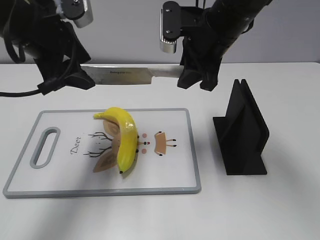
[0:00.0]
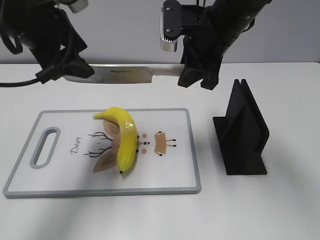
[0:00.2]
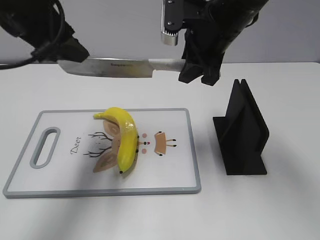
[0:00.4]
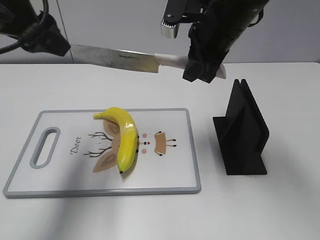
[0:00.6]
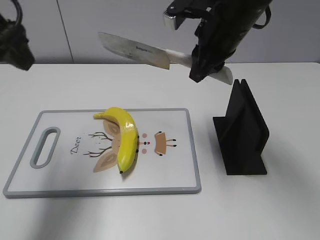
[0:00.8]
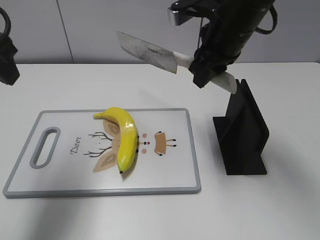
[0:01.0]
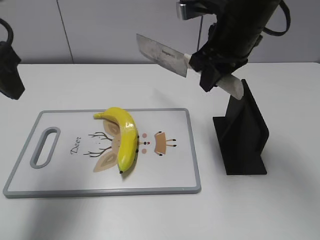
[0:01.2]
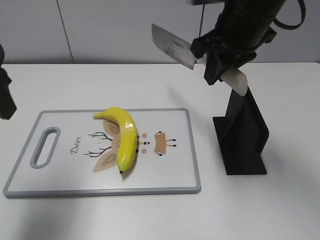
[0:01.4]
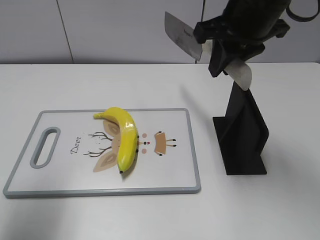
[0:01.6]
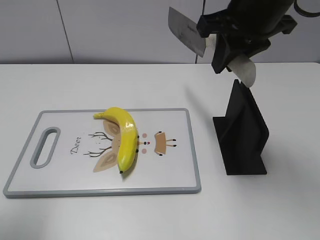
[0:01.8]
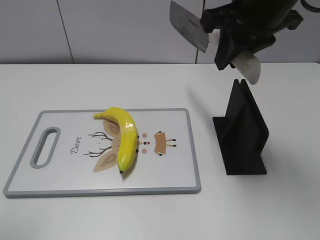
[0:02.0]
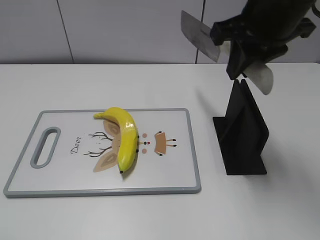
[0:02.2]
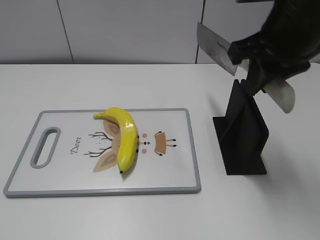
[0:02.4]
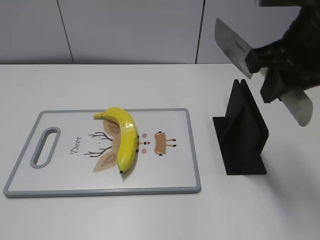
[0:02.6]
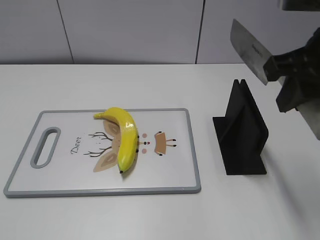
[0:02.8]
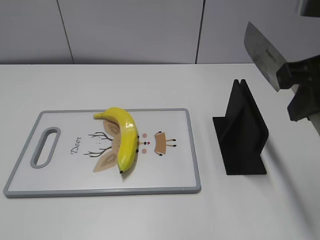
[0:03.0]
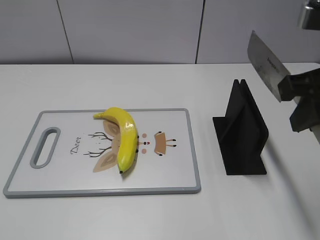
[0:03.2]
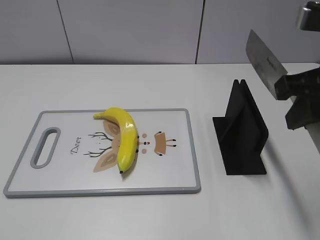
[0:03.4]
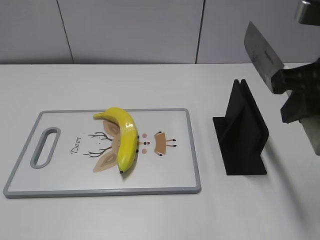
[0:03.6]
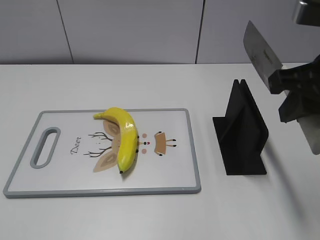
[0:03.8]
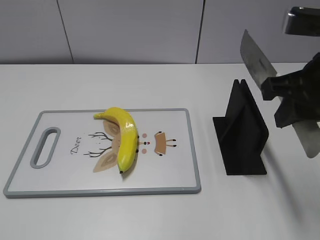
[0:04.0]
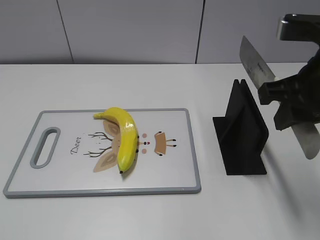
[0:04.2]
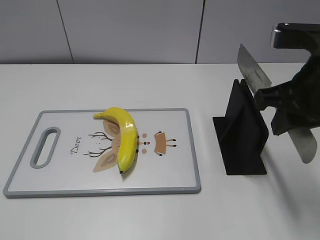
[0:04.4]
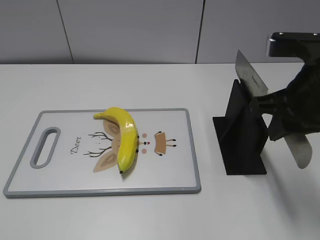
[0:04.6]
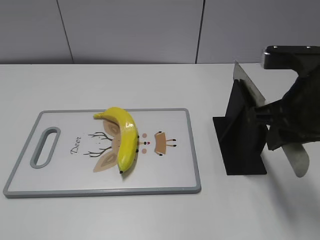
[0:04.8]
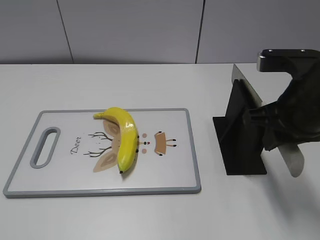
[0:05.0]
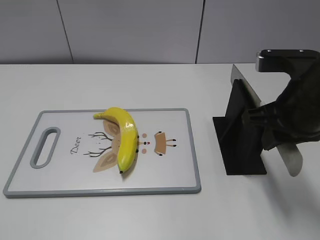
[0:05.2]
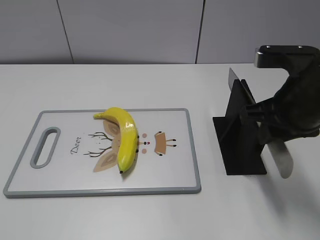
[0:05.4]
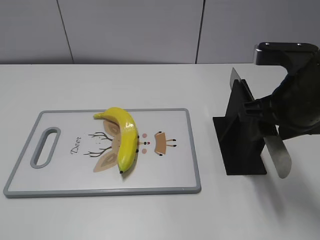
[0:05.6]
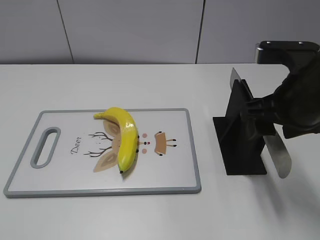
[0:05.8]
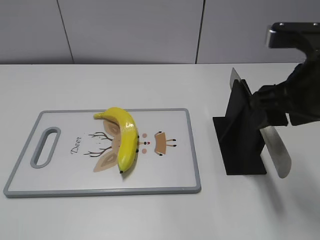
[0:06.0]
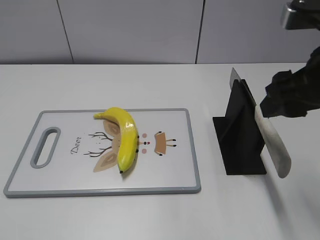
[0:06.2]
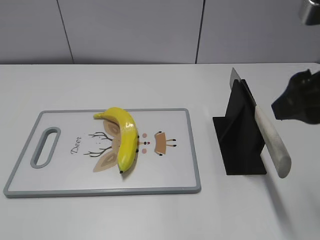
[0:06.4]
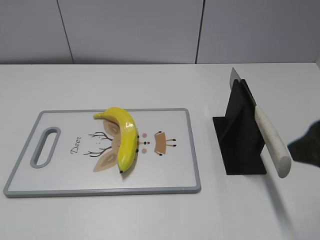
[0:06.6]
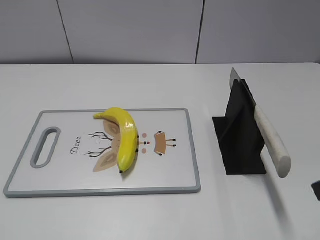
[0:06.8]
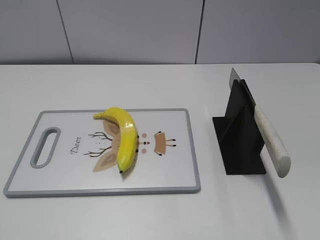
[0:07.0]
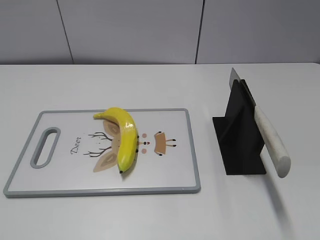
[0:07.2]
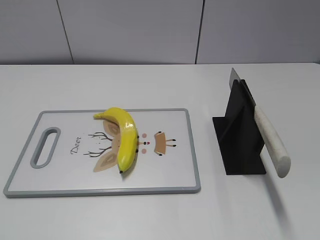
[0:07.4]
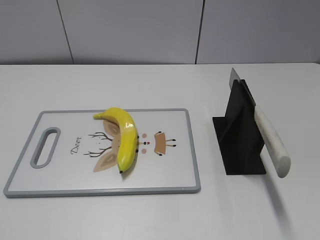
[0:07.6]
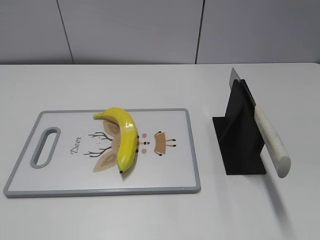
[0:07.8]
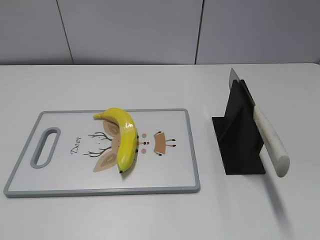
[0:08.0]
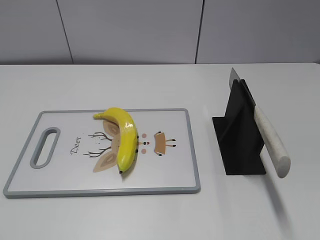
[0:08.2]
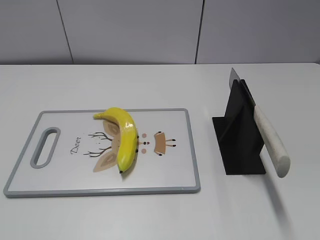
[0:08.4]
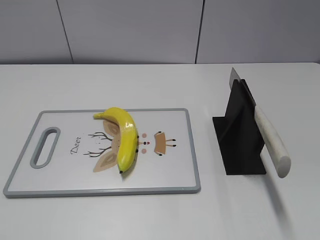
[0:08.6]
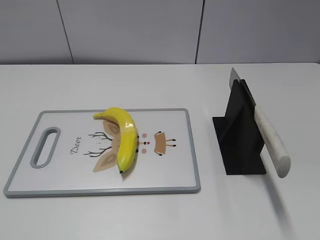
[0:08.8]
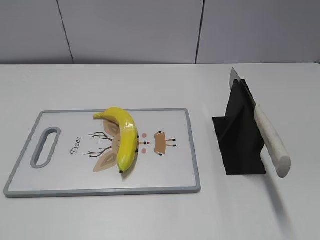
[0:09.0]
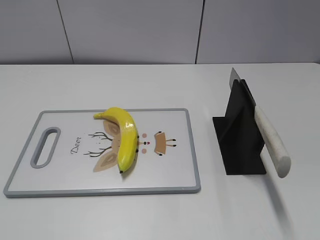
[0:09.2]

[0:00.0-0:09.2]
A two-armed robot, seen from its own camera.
Task of the whole recording: cut plastic banana.
Step, 0:00.8 to 0:02.4: Secure the blade with your left hand.
Step, 0:02.8 to 0:09.2: Place the knife on the storage rack with your right hand.
0:00.0 to 0:01.6: The right gripper travels upward by approximately 5 cm. The left gripper goes roughly 15 cm backward and to the left.
0:01.6 to 0:03.0: The left gripper goes about 20 cm backward; the right gripper travels backward and to the right by about 15 cm.
0:03.0 to 0:04.6: The right gripper heads downward, covering some 5 cm.
0:04.6 to 0:06.2: The right gripper opens.
0:06.2 to 0:07.6: The right gripper shifts approximately 20 cm backward and to the right.

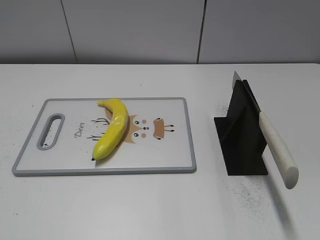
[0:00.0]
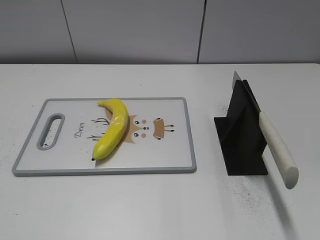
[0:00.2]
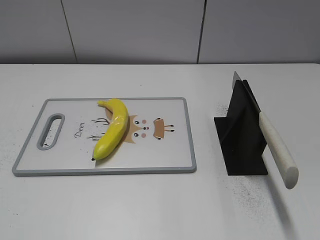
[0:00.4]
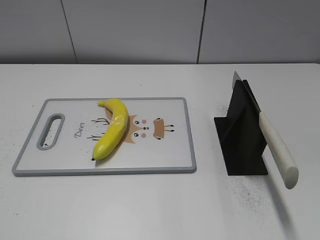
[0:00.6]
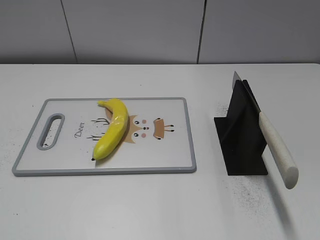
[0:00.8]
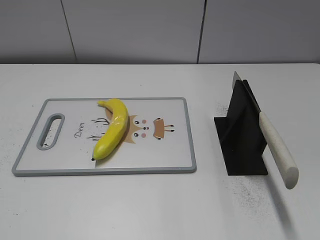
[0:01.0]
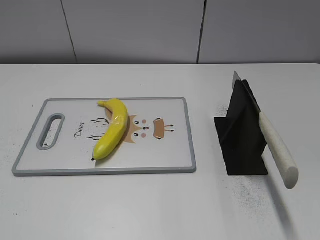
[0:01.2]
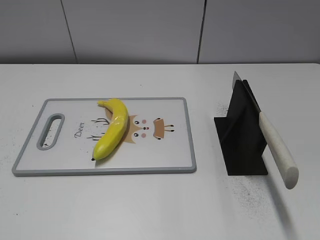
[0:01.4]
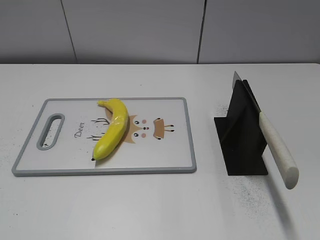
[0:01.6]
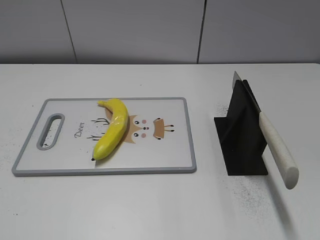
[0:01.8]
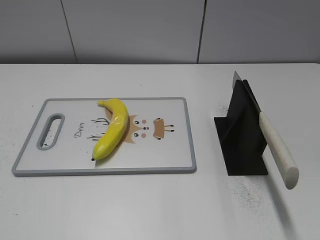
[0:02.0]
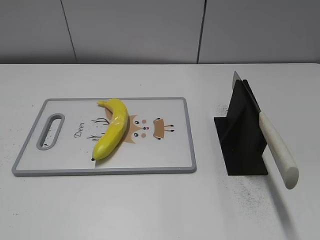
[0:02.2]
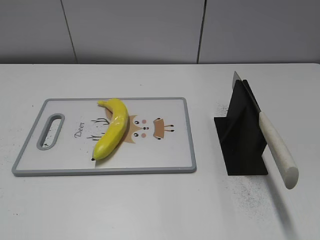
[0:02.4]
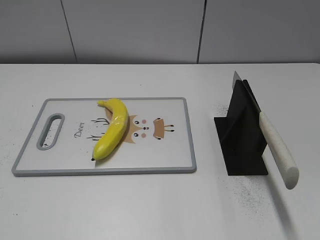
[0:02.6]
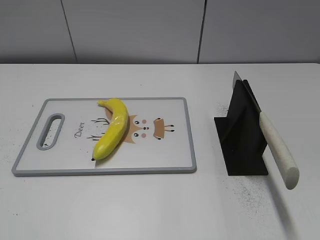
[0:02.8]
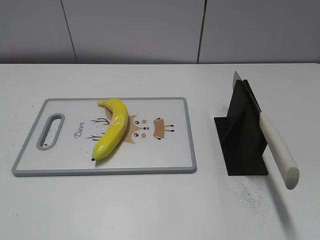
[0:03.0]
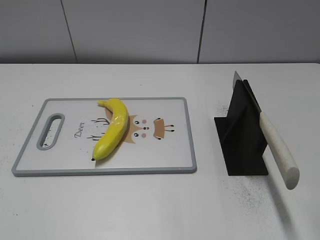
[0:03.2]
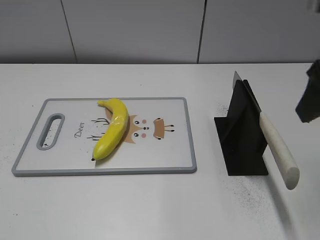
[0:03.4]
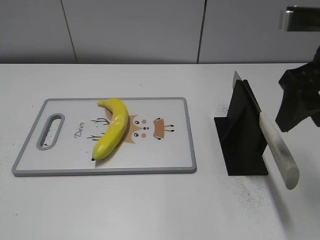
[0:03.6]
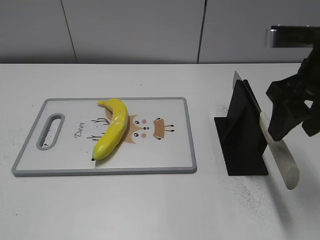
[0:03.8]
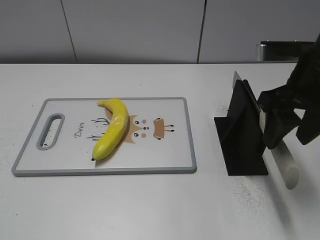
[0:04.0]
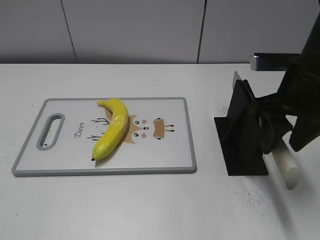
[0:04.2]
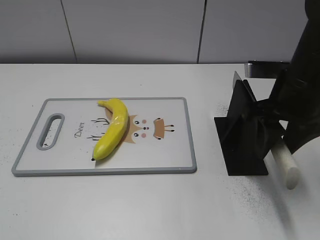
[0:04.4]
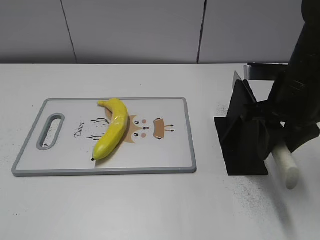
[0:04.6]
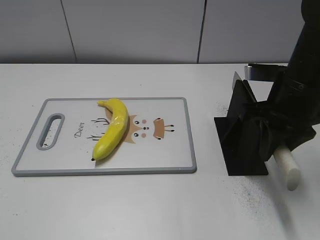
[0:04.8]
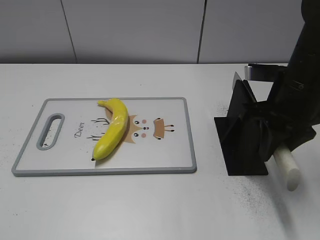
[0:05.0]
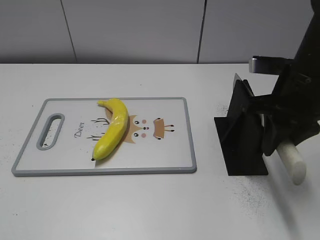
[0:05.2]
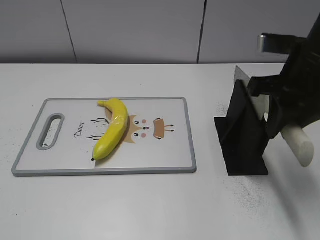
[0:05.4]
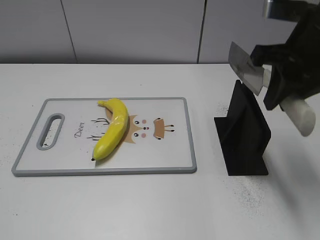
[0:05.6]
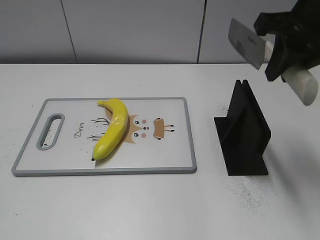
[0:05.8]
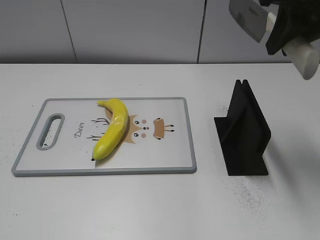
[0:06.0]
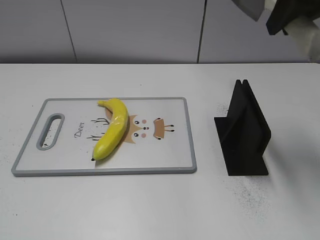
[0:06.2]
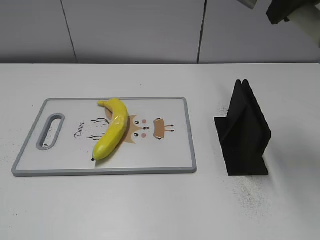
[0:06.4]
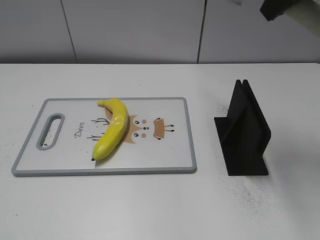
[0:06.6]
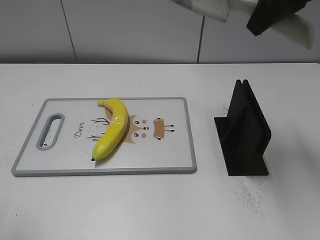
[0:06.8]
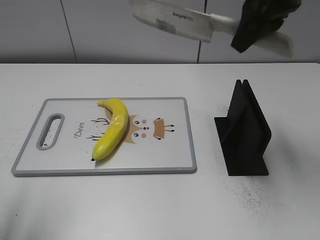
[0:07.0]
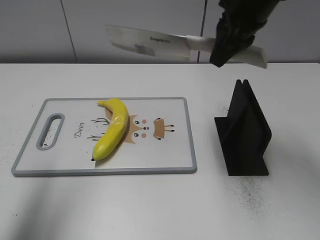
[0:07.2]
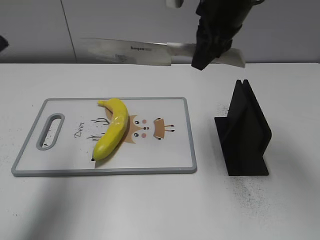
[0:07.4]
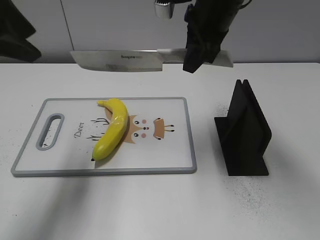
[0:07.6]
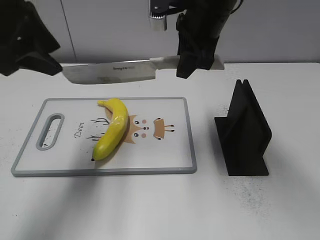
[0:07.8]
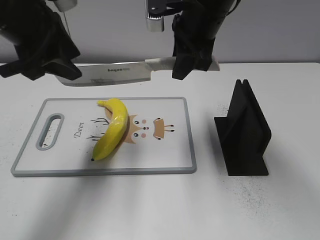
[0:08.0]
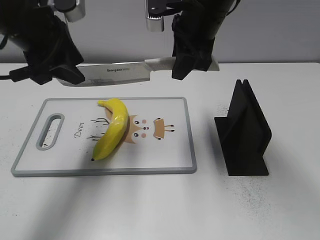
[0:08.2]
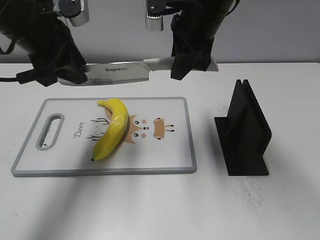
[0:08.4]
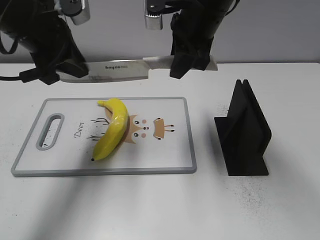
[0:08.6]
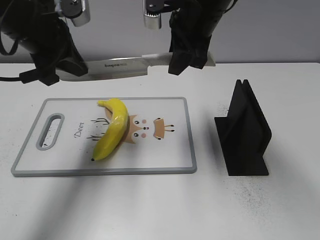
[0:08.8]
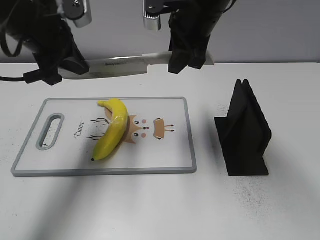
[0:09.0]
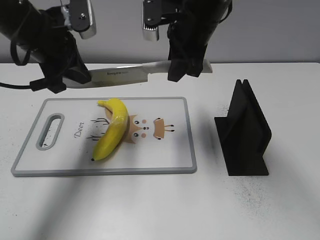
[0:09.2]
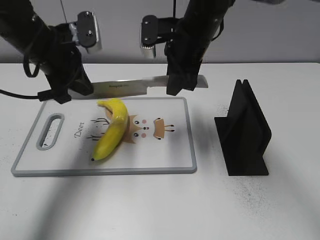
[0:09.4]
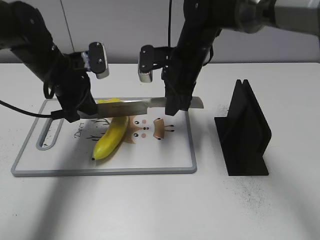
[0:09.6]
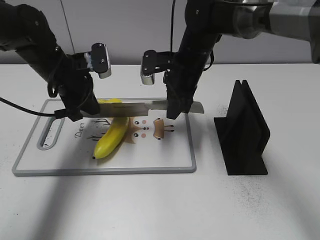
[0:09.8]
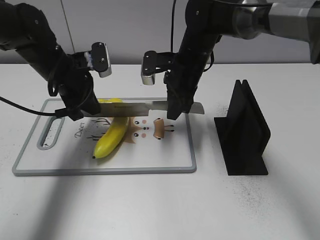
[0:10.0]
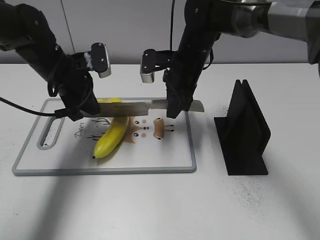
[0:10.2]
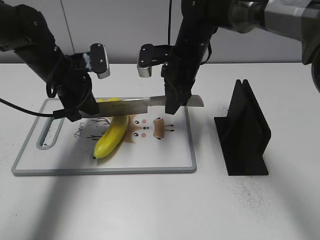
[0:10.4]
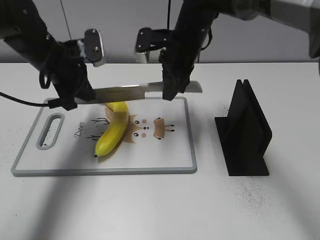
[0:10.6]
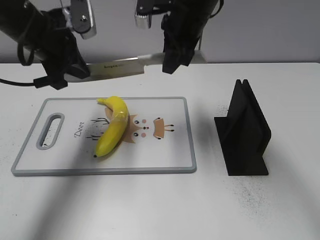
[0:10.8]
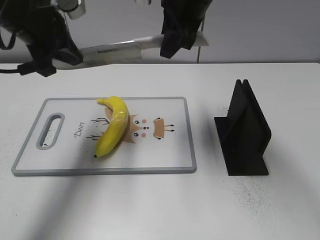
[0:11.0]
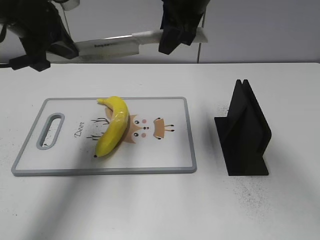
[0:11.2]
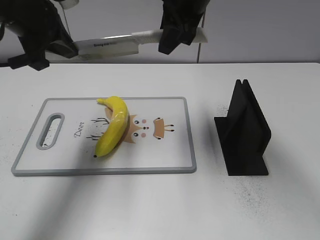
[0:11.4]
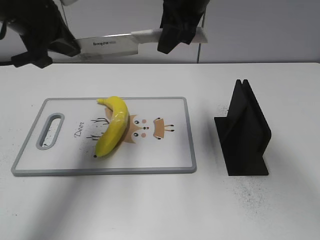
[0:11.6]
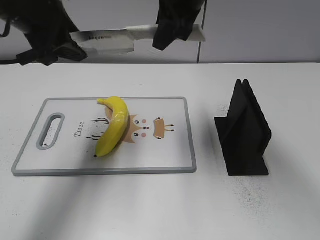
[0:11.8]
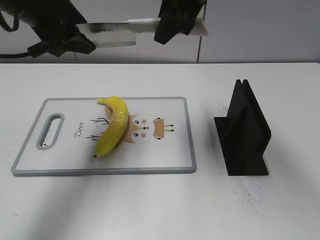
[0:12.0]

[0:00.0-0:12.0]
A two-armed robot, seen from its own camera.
Task of the whole recording: cut plastic banana.
Step, 0:00.0 to 0:06.2: Grab the knife handle with your right hand.
Step, 0:06.4 to 0:10.6: Lift the knife with your right hand.
0:03.0 to 0:04.4: The right gripper moves forward, downward and to the left, approximately 20 cm.
0:04.4 to 0:06.0: The right gripper heads upward, covering roughly 15 cm, and closes up.
0:06.0 to 0:07.6: The right gripper moves to the left, forward and downward, some 15 cm; the left gripper is displaced forward by roughly 25 cm.
0:07.6 to 0:09.0: The left gripper is displaced downward and forward by approximately 10 cm, and closes up.
0:09.0 to 0:10.4: Both grippers move downward, about 10 cm.
0:10.4 to 0:12.0: Both grippers travel together upward, approximately 15 cm. The left gripper opens up.

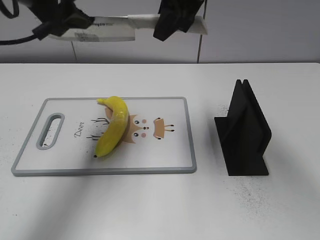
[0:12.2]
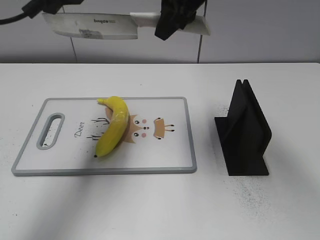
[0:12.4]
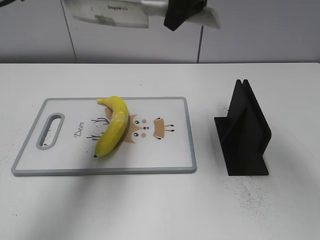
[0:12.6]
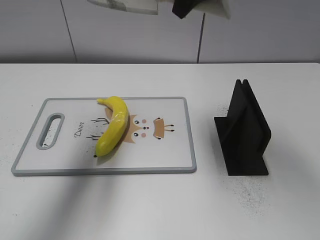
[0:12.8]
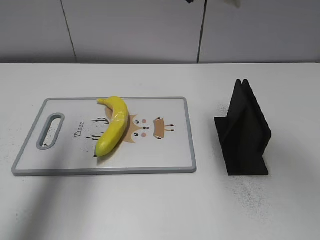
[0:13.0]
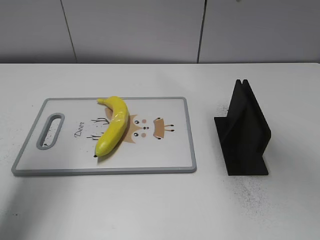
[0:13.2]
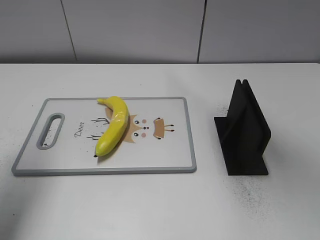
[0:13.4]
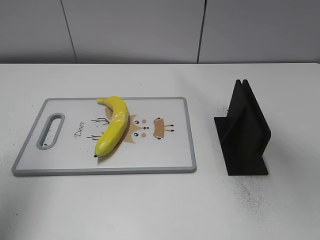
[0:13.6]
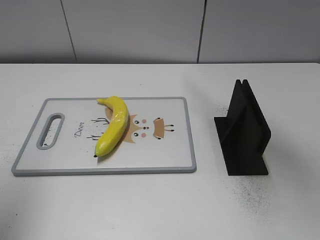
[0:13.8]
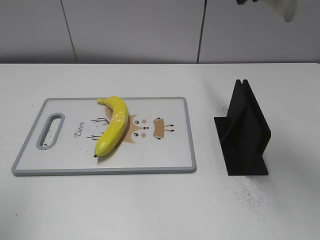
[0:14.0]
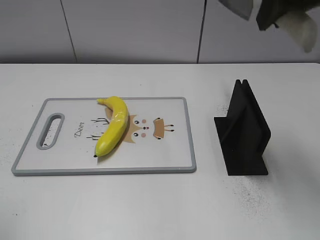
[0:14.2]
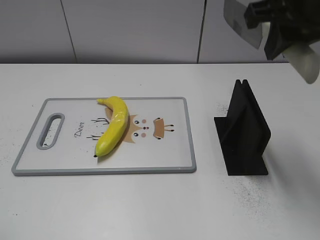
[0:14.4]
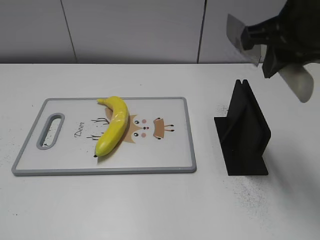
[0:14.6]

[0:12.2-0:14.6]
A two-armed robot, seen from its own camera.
Task of the whole recording: cut plastic banana.
0:12.2 to 0:13.4: The left gripper goes approximately 15 cm to the left and backward. Meanwhile the right gripper moves upward, about 10 cm.
0:13.4 to 0:14.6: The right gripper goes about 15 cm downward, backward and to the right. The left gripper moves backward, approximately 20 cm.
